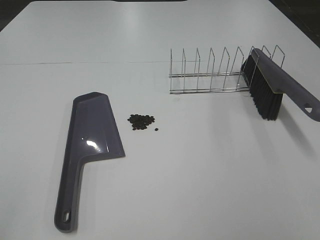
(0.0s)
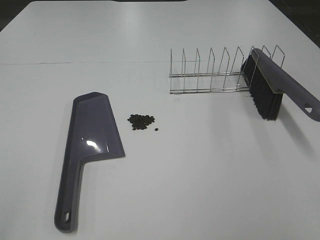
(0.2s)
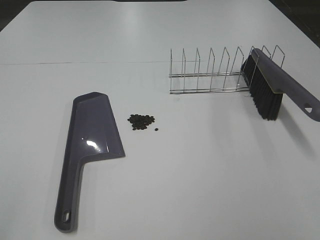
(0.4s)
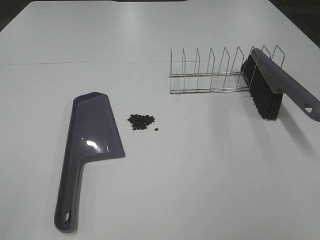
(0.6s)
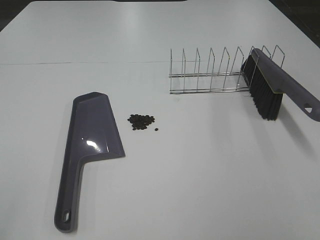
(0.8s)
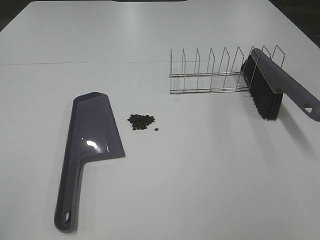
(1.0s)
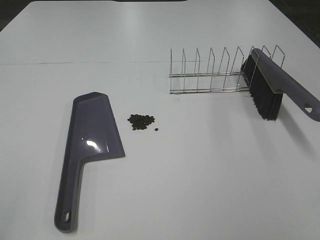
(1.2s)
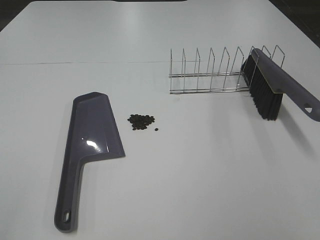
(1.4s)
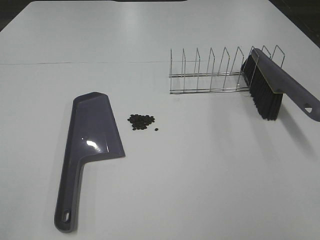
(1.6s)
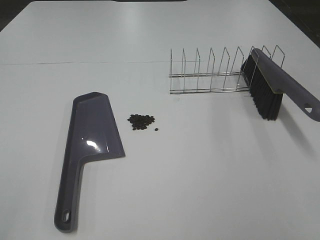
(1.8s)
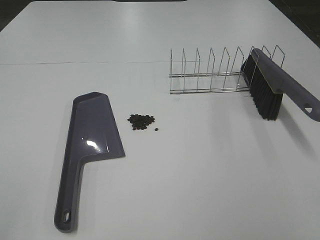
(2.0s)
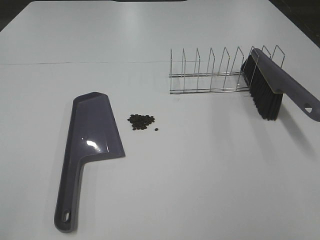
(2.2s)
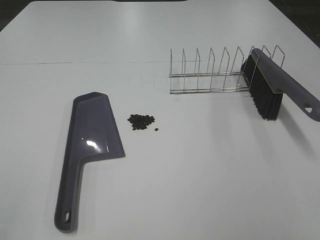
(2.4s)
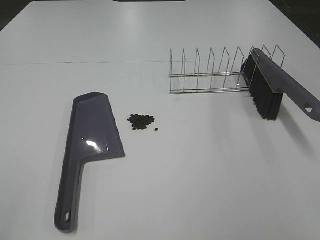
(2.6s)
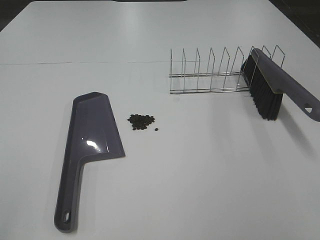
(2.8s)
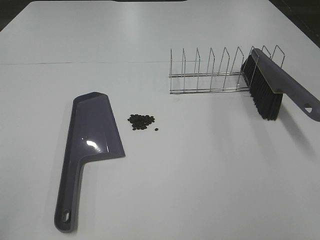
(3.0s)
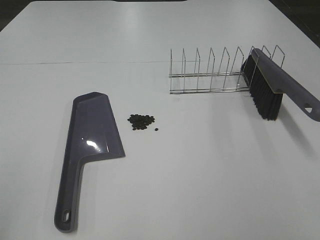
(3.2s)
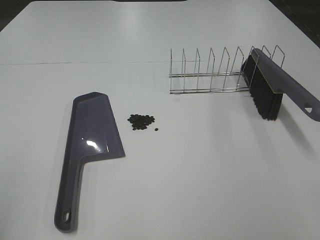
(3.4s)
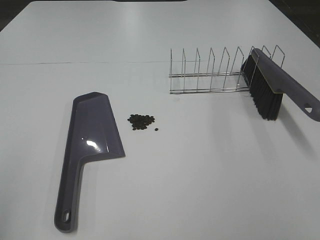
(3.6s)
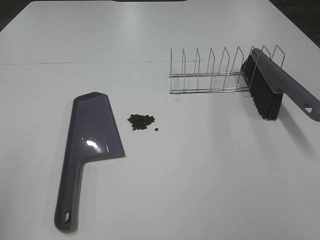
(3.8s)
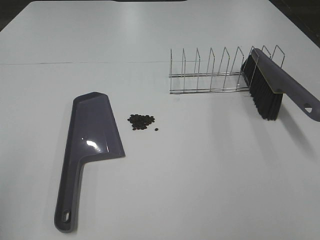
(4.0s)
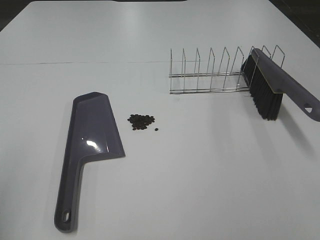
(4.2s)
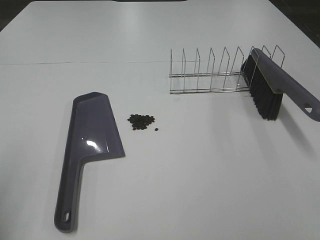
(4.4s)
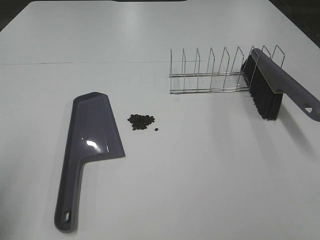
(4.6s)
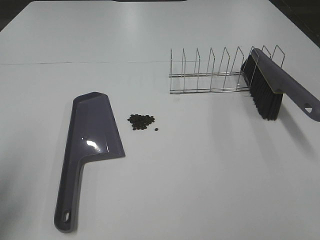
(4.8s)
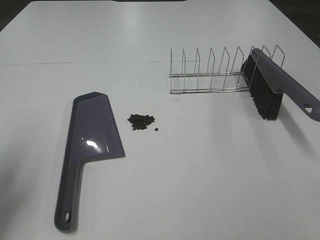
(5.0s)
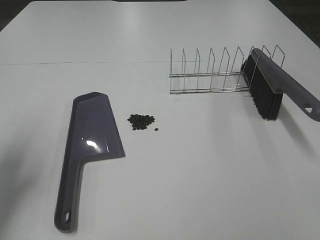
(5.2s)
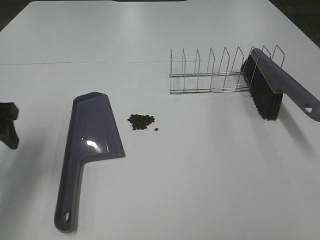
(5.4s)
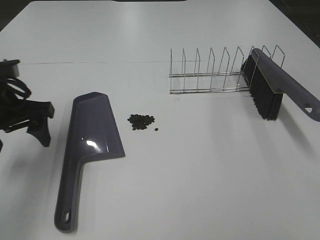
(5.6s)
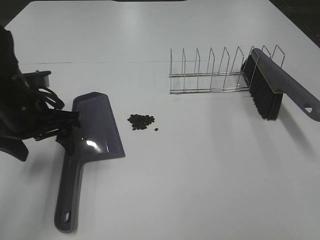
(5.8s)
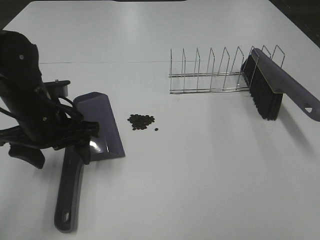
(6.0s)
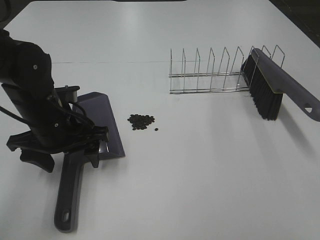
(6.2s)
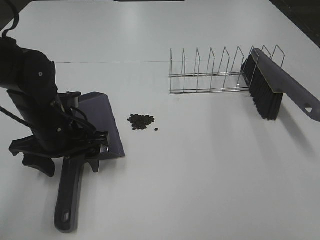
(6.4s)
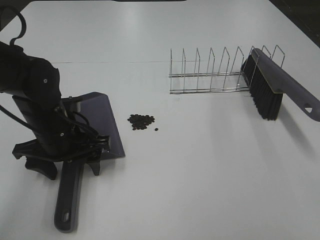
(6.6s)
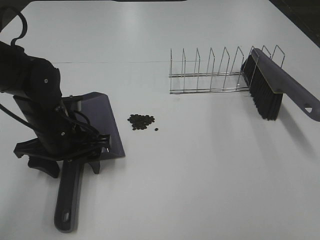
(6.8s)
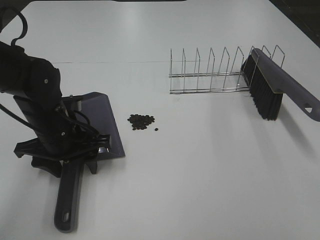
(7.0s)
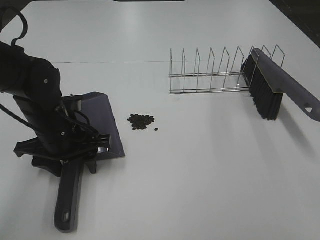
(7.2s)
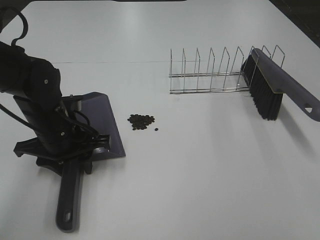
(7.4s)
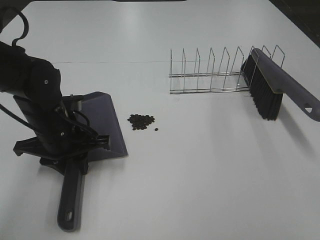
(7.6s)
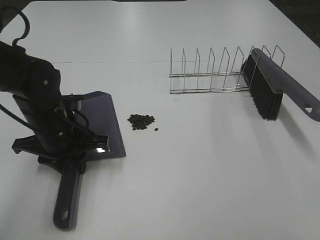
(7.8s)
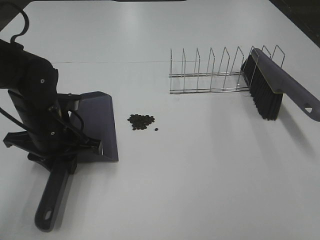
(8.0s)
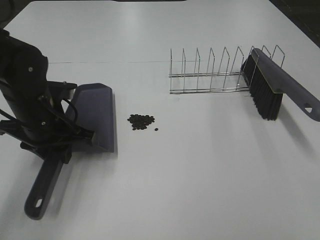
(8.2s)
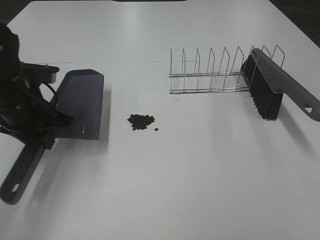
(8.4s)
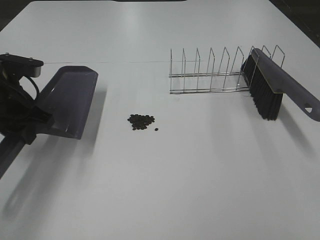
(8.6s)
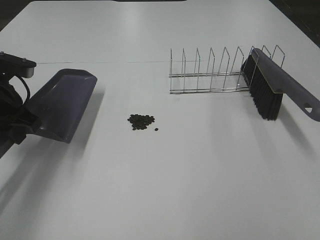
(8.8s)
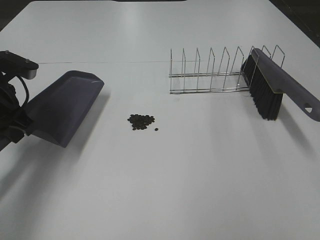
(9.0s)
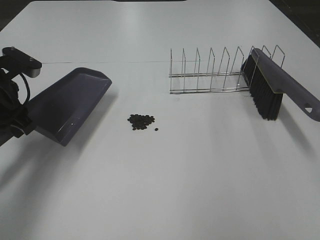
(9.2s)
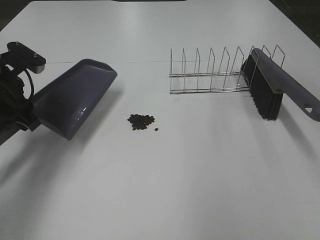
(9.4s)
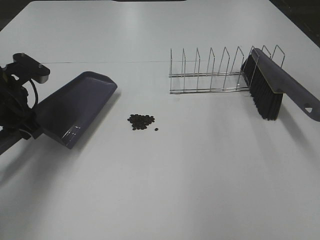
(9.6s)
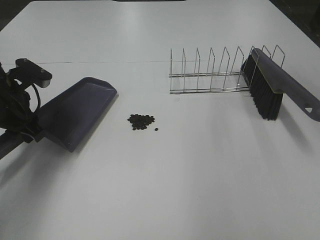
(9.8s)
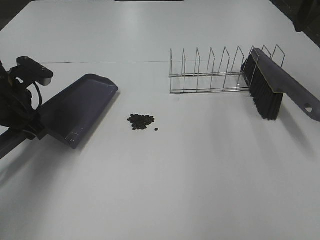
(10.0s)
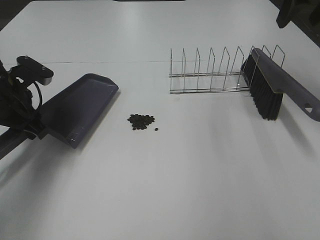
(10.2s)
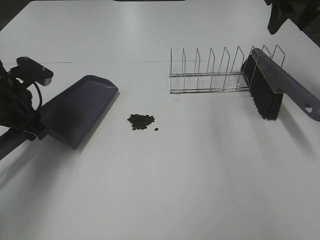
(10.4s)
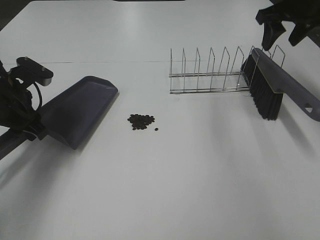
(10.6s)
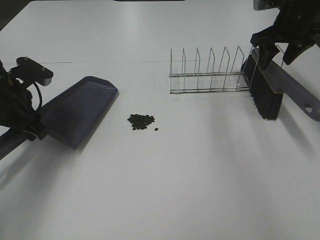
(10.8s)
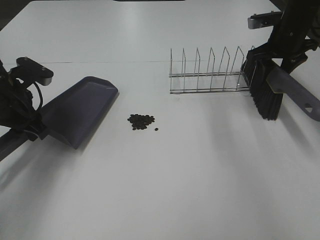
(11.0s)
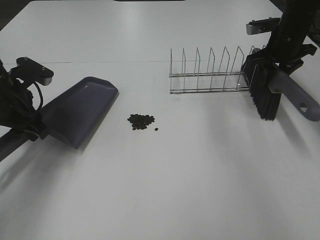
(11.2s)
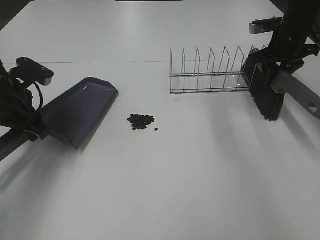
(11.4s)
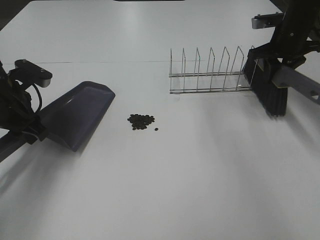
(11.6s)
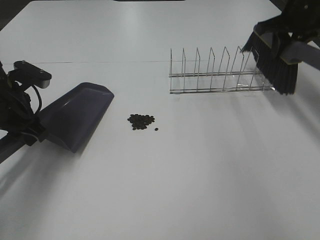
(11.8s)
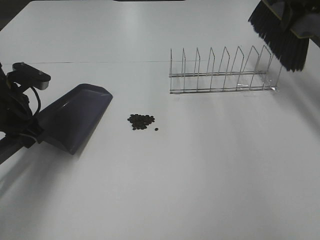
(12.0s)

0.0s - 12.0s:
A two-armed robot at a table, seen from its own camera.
Task of the whole recording: Sweep Coffee Bean.
Step, 0.0s - 7.4s: Left hand: grab the dustpan.
Step, 8.4s - 11.4s: Right hand:grab the broom.
0.0s - 1.6s: The two grippers keep their place.
4.4s - 6.0s: The left gripper shifts about 25 cm forward, to the right and downward.
6.0s - 7.6s: The left gripper closes up.
7.6s - 9.0s: The right gripper moves forward and upward, approximately 10 cm. Meanwhile the left gripper goes about 10 cm to the left and upward.
9.0s - 10.4s: The right gripper heads forward, covering some 35 cm.
10.4s - 12.0s: The right gripper reaches approximately 15 cm downward, then returns, and closes.

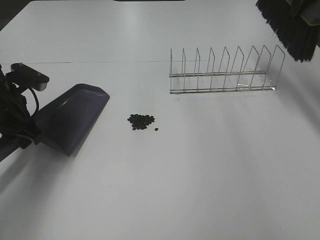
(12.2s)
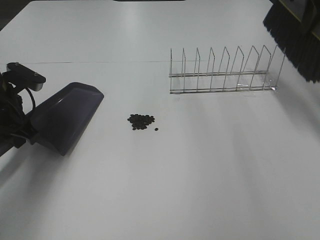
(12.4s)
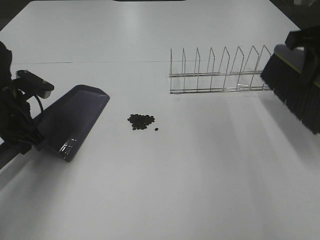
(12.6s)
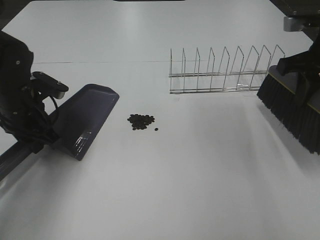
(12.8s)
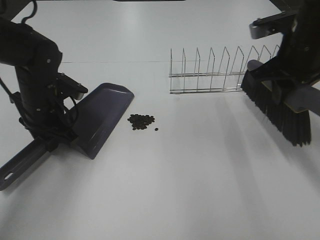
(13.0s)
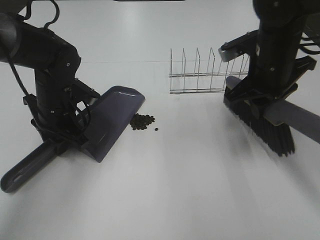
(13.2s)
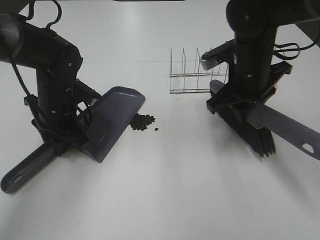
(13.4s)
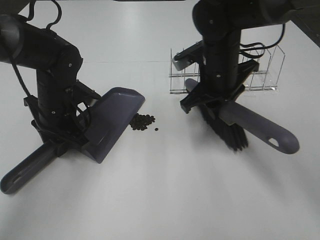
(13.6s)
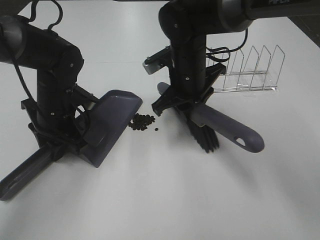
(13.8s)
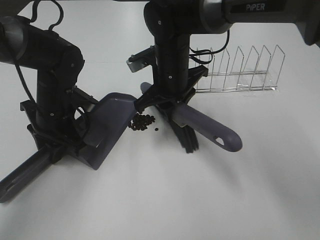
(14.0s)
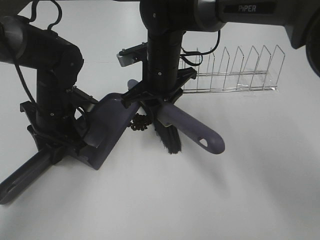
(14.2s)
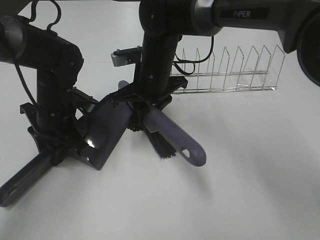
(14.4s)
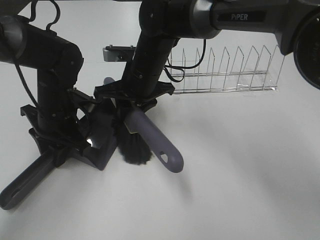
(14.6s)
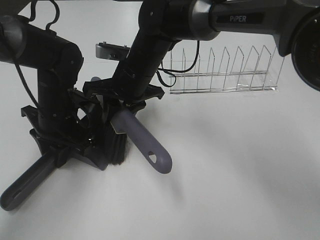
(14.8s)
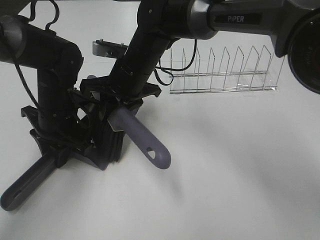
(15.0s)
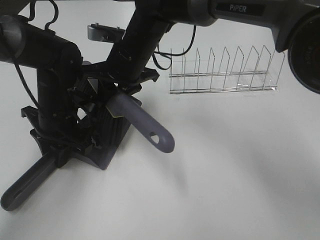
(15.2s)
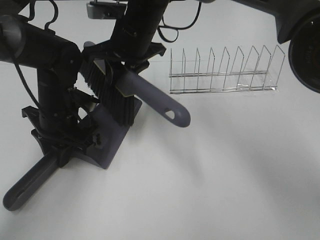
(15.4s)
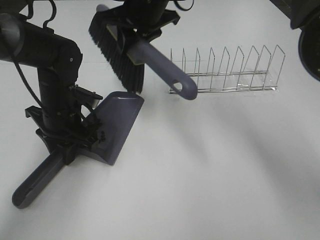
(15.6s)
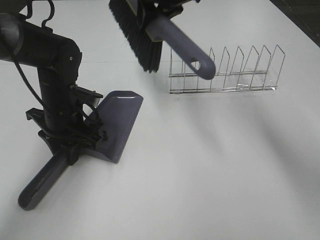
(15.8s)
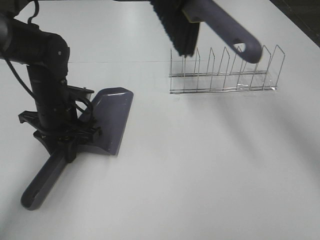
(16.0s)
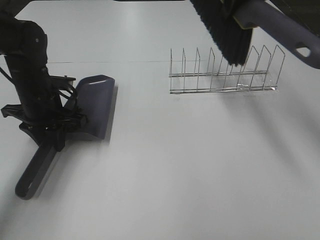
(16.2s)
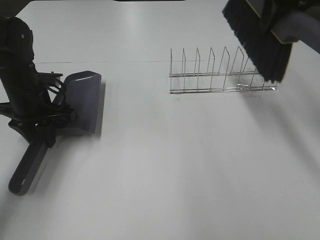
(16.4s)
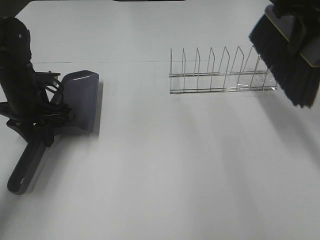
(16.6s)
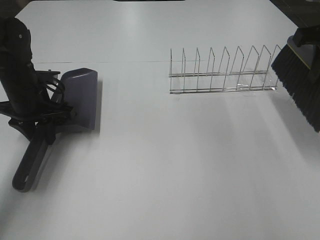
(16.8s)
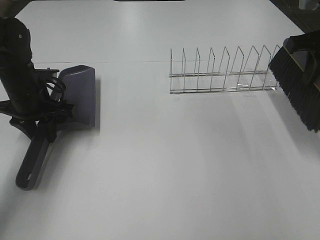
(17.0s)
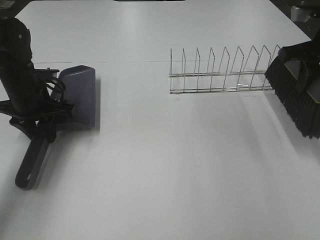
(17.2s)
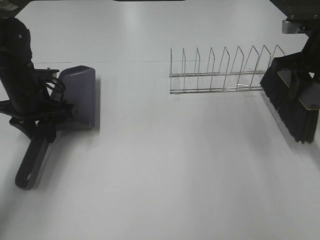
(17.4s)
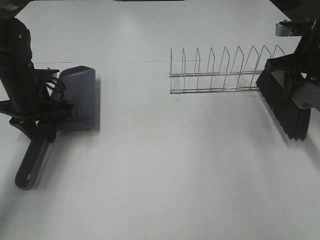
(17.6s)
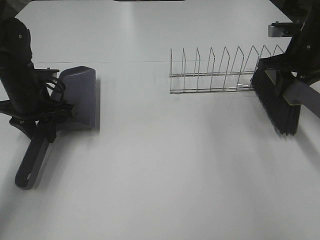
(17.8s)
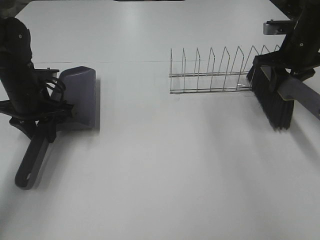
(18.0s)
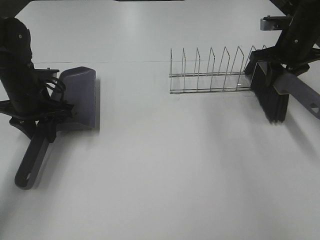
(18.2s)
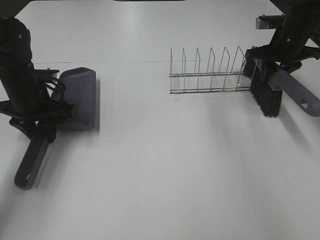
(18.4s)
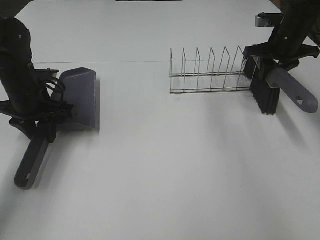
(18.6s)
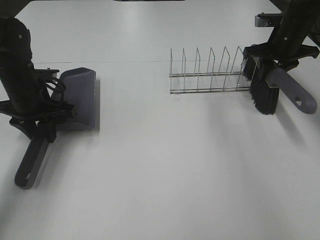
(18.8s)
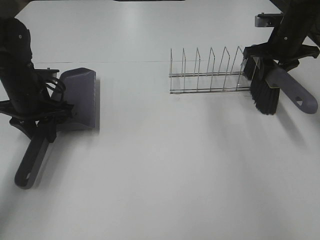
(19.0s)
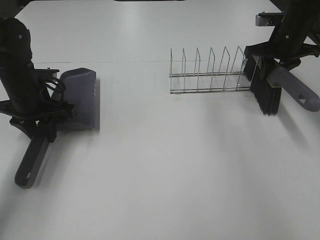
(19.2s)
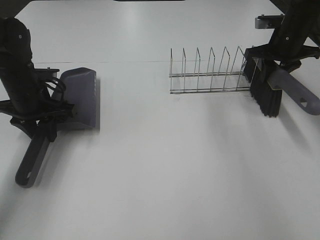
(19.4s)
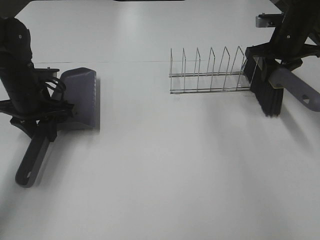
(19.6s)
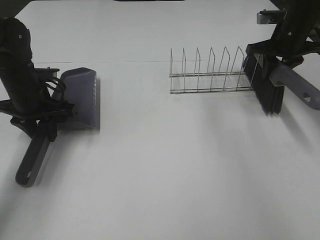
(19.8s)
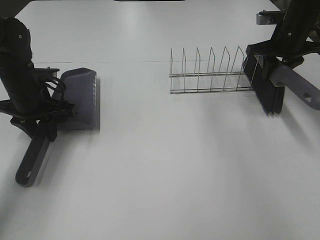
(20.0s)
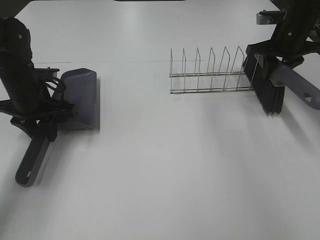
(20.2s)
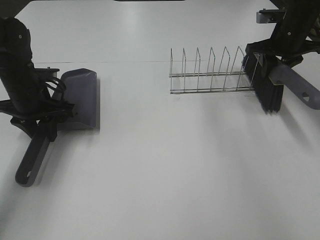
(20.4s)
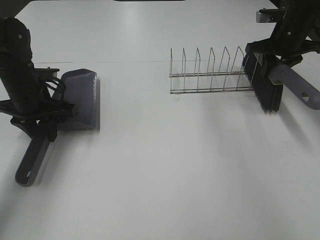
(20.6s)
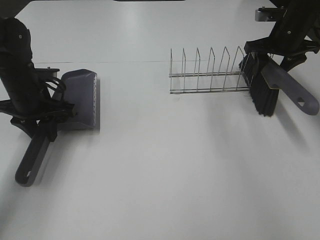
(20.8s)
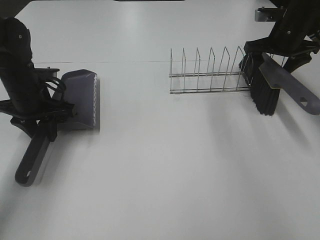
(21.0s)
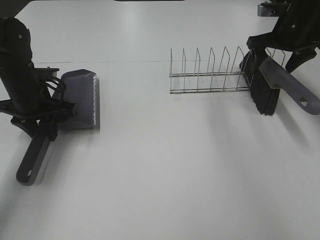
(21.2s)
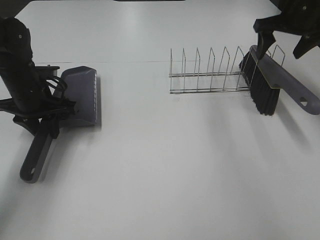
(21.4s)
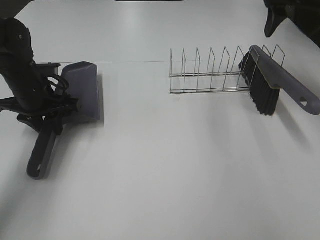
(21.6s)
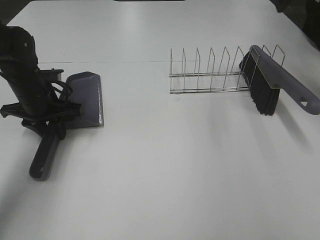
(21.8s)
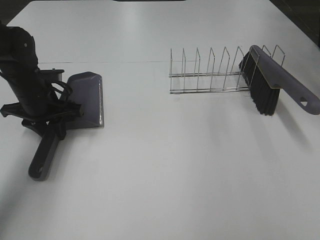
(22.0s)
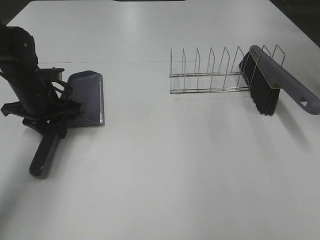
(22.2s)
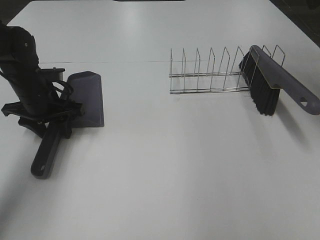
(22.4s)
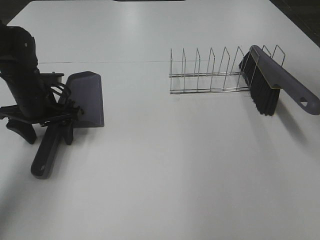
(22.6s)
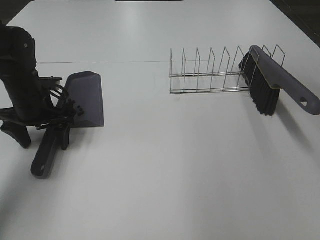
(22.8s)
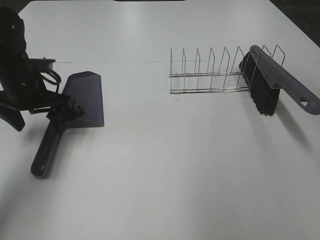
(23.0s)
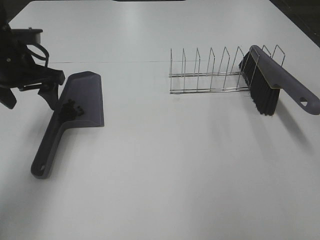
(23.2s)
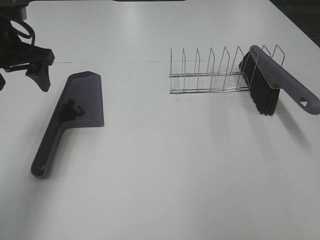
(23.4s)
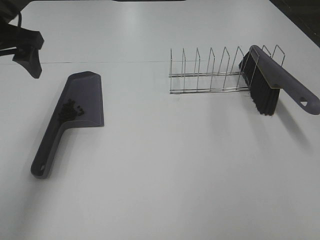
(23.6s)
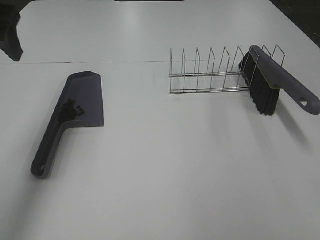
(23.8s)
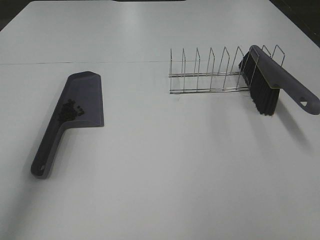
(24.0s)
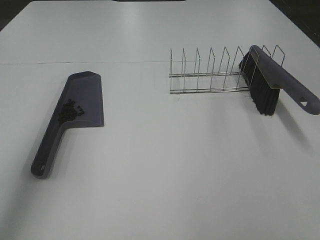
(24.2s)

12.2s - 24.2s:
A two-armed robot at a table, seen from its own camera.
Task of the whole recording: Sweep Coffee Bean.
Step, 12.2s - 15.4s: Right hand:sweep the coffee beans into the dustpan.
Step, 15.6s - 21.0s: Right hand:place the broom on the rack.
12.2s - 13.8s: The left gripper shifts about 10 cm to the right, while the right gripper shifts some 30 cm to the left and downward.
13.8s - 15.2s: The right gripper is displaced to the left by some 10 cm.
15.2s - 16.6s: The right gripper heads to the right and upward, covering approximately 30 cm, while the left gripper goes approximately 5 cm to the left.
16.6s - 18.2s: The right gripper moves downward and forward, about 20 cm.
18.2s - 19.8s: The grippers stay close to where they were, moving slightly.
19.8s - 21.2s: The right gripper opens.
21.2s - 22.6s: The right gripper travels backward and upward by about 25 cm. The left gripper opens.
22.6s - 24.2s: The left gripper heads upward and backward, covering about 35 cm.
